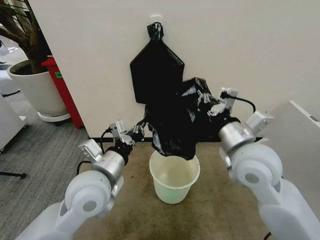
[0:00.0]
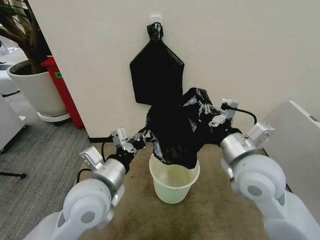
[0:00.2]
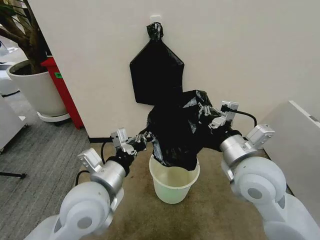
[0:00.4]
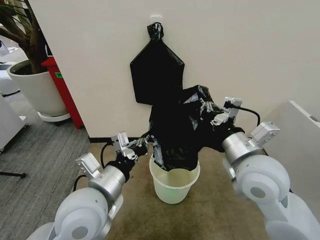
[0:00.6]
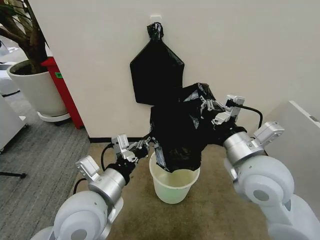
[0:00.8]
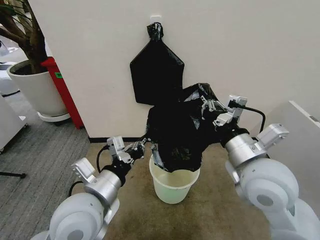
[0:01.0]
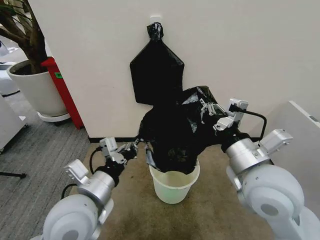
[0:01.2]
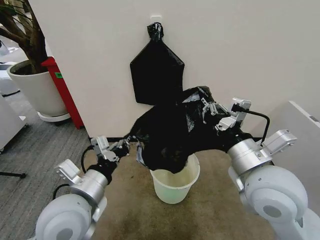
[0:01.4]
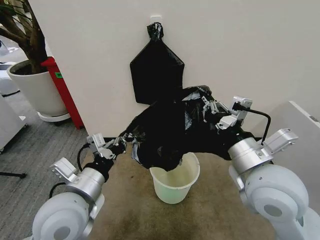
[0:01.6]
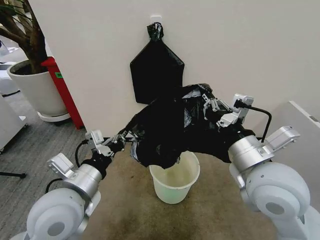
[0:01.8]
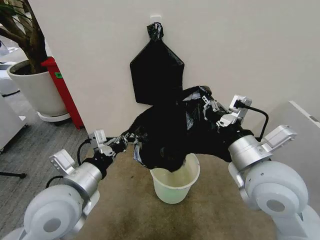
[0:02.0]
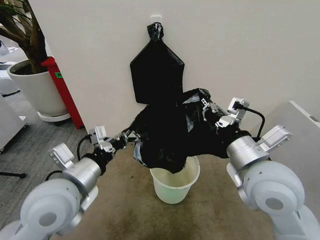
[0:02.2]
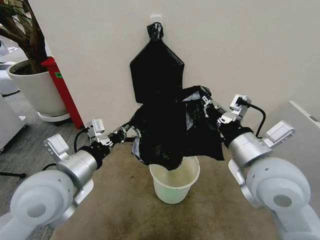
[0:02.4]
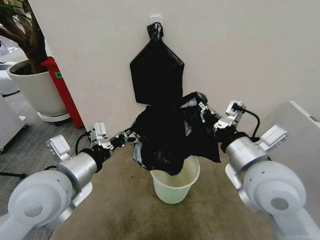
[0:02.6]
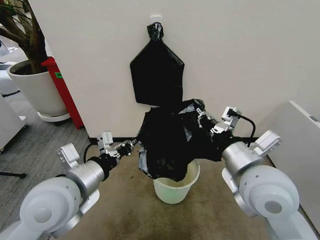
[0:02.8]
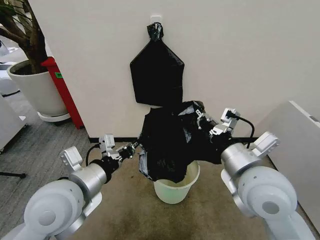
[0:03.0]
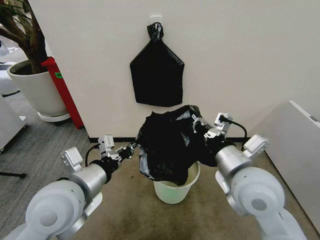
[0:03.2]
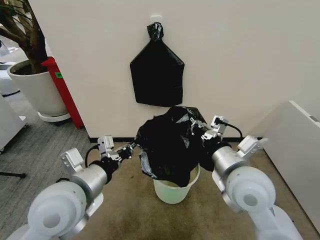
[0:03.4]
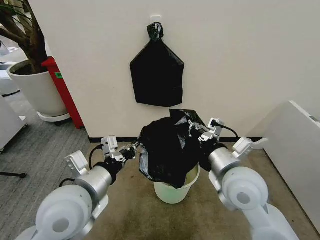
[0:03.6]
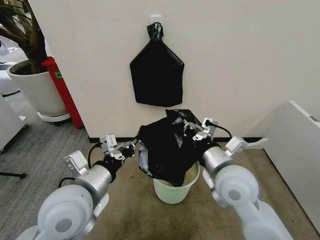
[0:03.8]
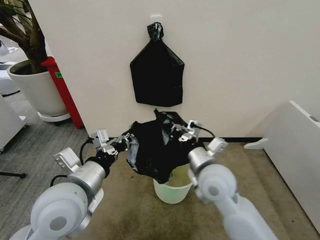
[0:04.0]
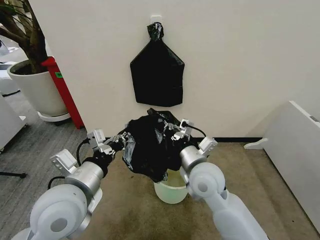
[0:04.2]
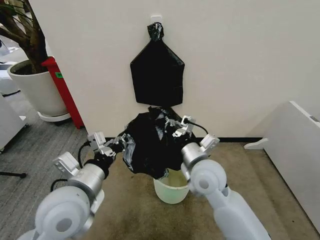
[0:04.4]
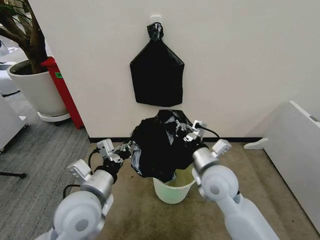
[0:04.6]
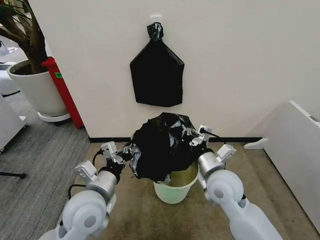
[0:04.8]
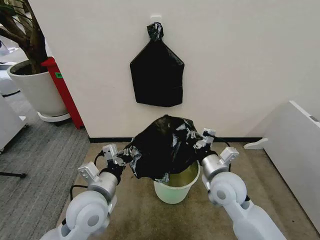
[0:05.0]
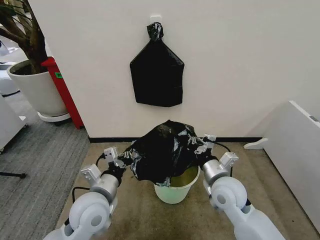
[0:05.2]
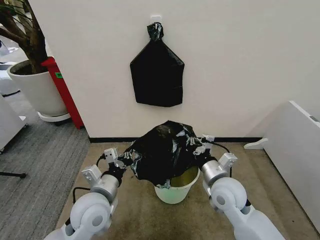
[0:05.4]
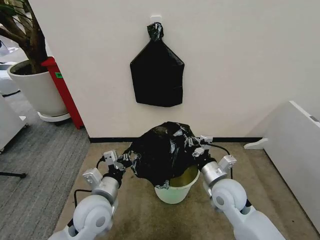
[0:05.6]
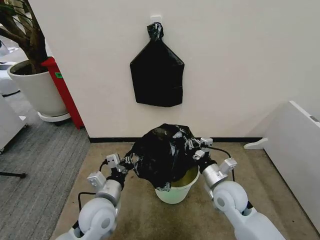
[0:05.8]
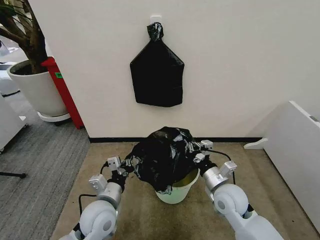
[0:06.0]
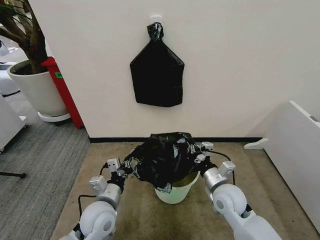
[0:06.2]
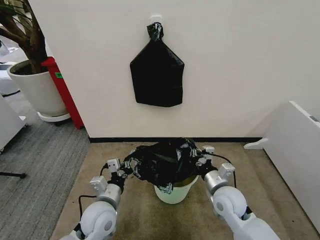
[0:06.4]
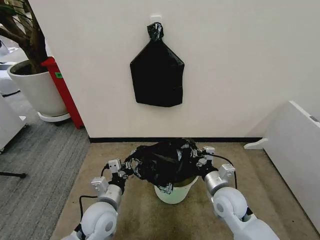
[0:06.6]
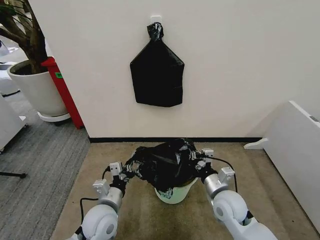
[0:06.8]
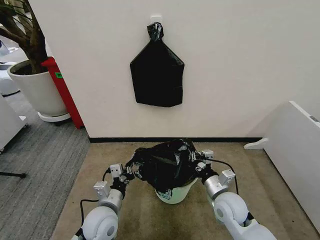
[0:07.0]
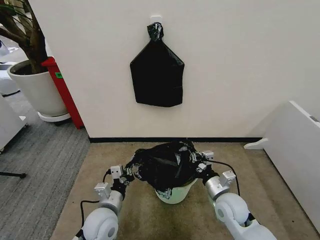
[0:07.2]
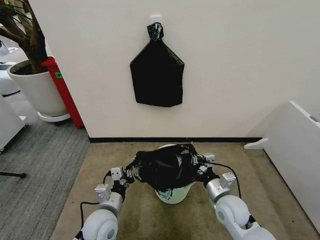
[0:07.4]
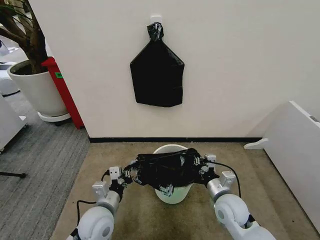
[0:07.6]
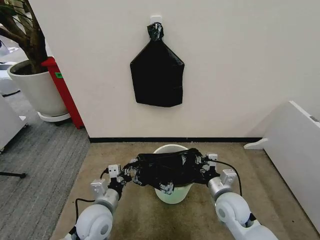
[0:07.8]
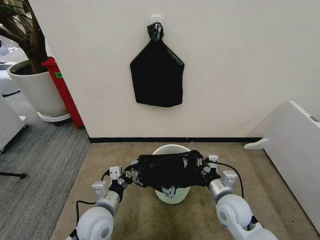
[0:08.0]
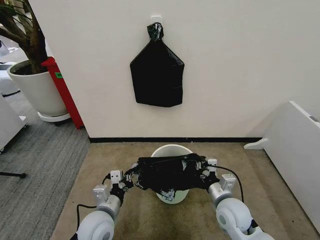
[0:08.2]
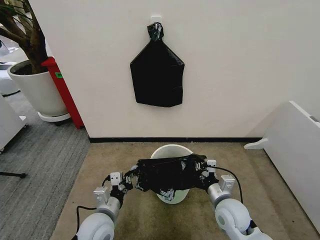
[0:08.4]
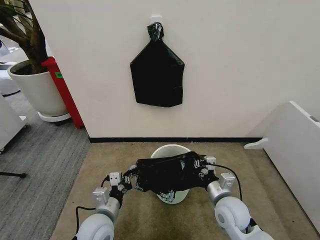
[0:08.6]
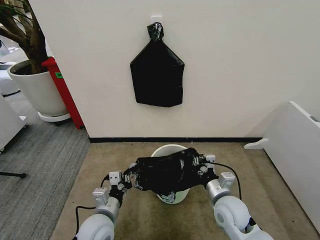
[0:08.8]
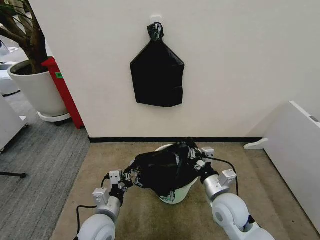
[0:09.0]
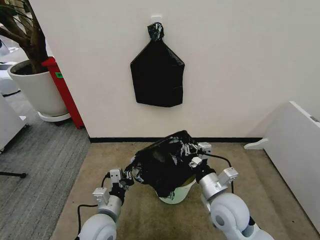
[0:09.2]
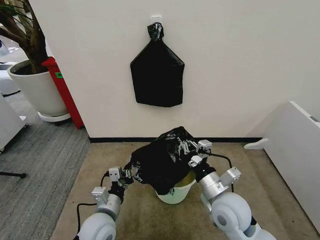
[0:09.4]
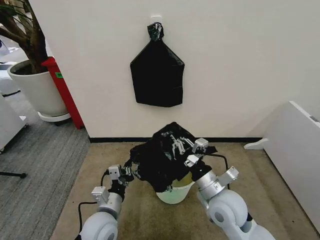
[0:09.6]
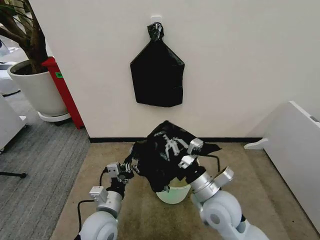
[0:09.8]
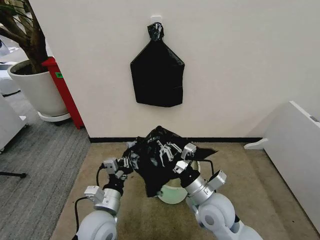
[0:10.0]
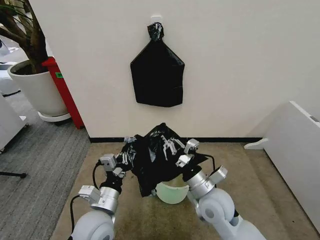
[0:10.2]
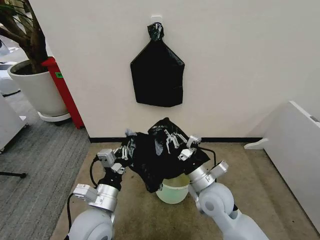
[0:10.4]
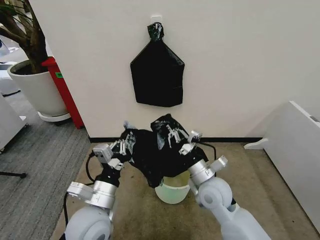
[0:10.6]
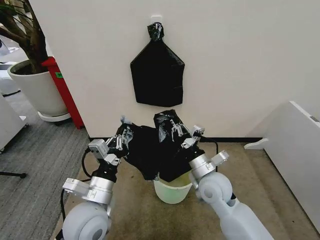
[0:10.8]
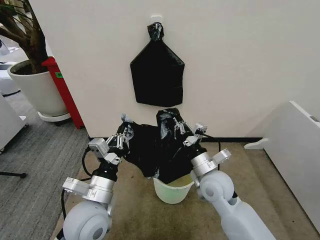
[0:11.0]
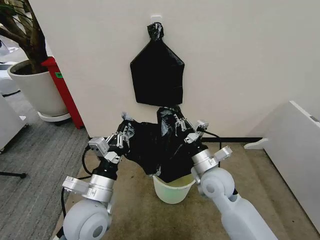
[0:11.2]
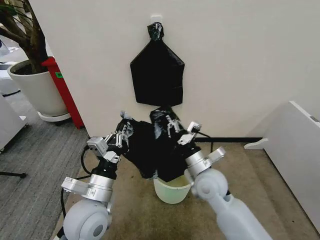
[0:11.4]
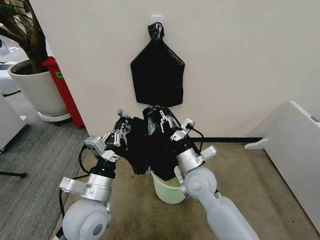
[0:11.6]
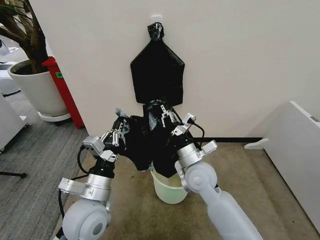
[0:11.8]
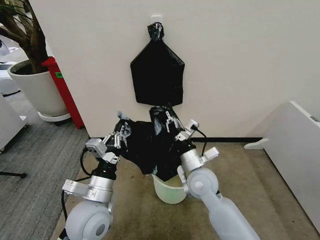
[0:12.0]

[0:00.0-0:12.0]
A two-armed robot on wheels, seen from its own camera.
Task of the whole recording: Place the garbage bag over the trash bin.
0:00.0 to 0:01.6: The left gripper moves approximately 5 cm. The right gripper is displaced backward by some 5 cm.
0:01.6 to 0:03.0: There are only small adjustments of the grippers.
0:03.0 to 0:04.4: The right gripper heads downward, forward and to the left, covering roughly 15 cm.
0:04.4 to 0:06.0: The right gripper heads downward and to the right, covering approximately 15 cm, while the left gripper heads downward, covering approximately 15 cm.
0:06.0 to 0:07.6: The grippers move only a little.
0:07.6 to 0:09.0: The right gripper changes place by approximately 5 cm.
0:09.0 to 0:10.4: The left gripper is displaced upward by some 10 cm, while the right gripper moves some 5 cm.
0:10.4 to 0:12.0: The right gripper moves some 5 cm.

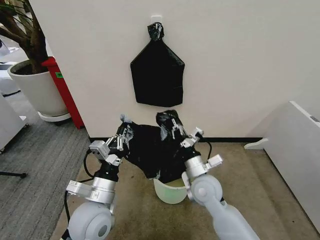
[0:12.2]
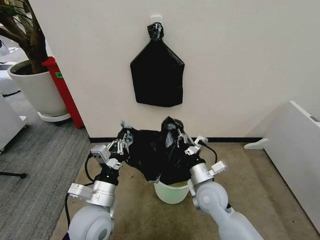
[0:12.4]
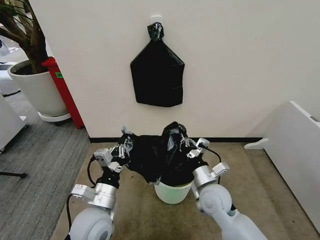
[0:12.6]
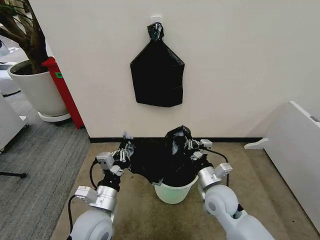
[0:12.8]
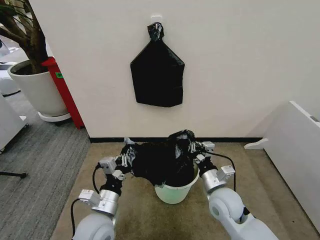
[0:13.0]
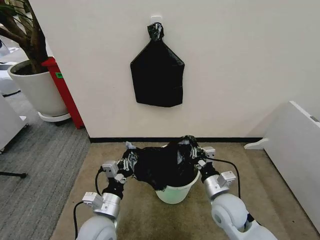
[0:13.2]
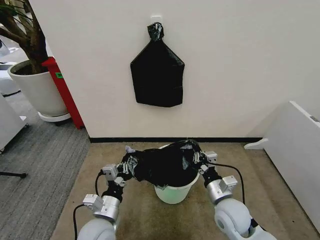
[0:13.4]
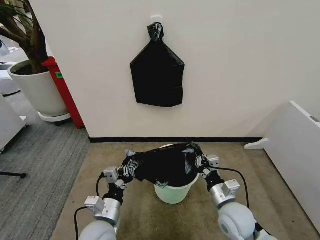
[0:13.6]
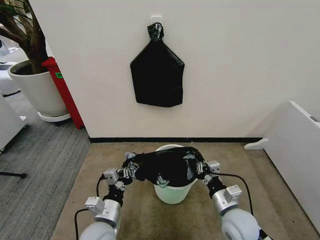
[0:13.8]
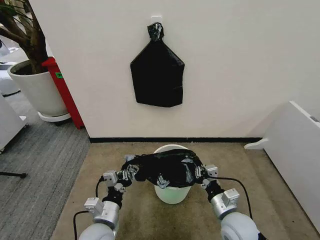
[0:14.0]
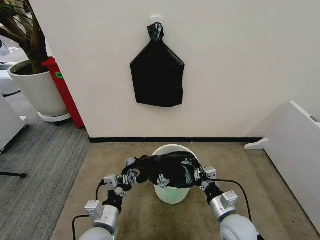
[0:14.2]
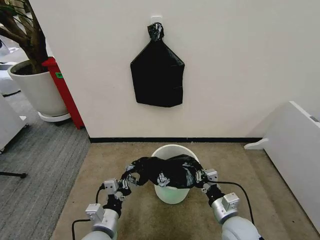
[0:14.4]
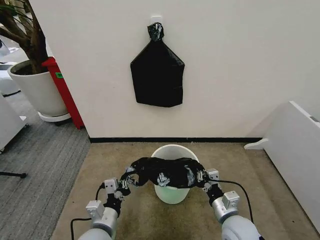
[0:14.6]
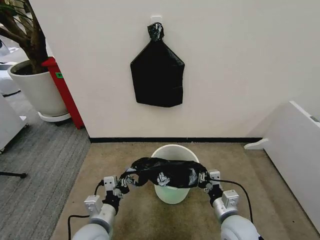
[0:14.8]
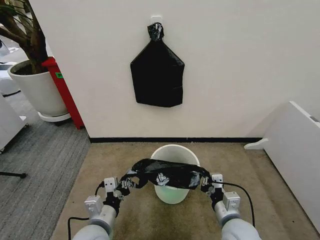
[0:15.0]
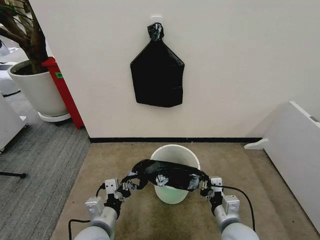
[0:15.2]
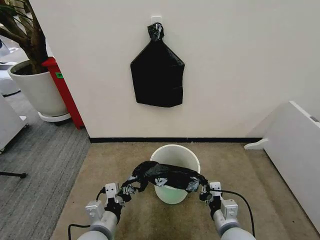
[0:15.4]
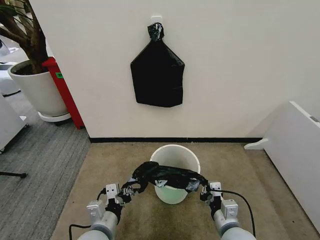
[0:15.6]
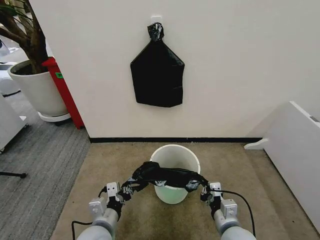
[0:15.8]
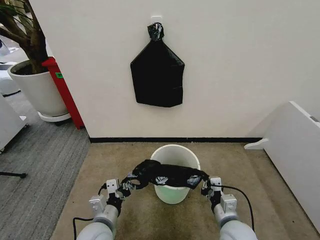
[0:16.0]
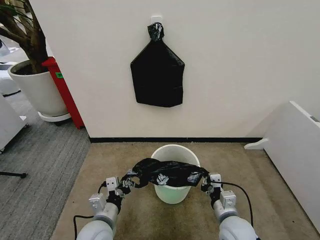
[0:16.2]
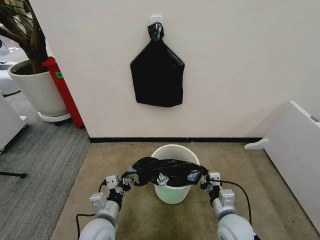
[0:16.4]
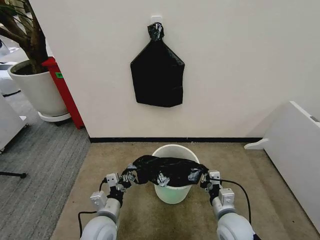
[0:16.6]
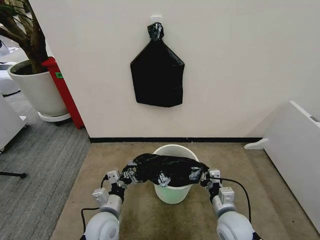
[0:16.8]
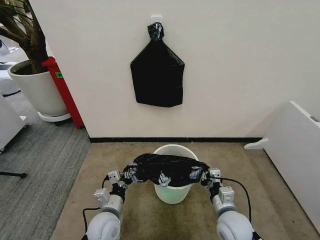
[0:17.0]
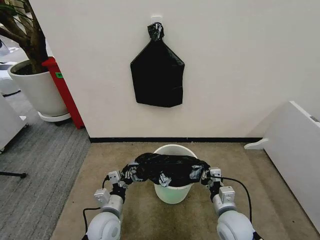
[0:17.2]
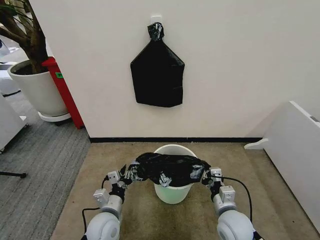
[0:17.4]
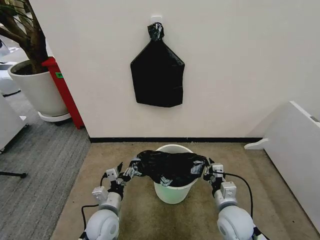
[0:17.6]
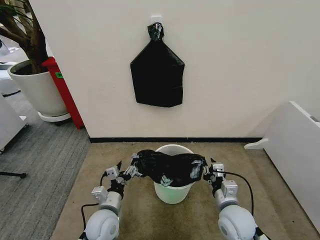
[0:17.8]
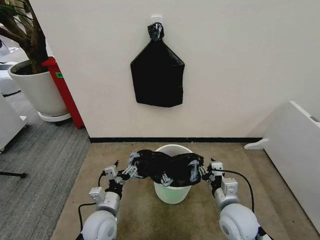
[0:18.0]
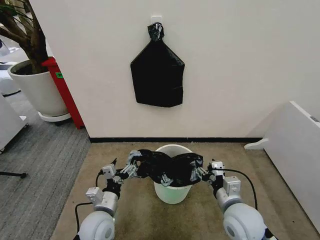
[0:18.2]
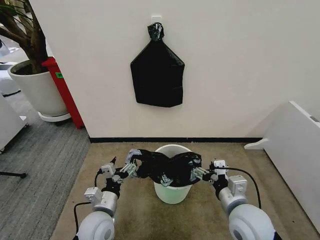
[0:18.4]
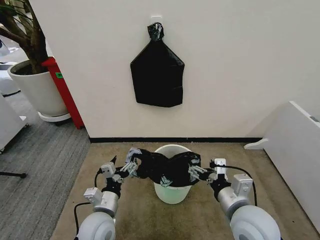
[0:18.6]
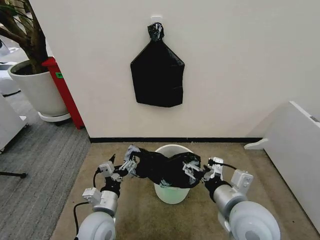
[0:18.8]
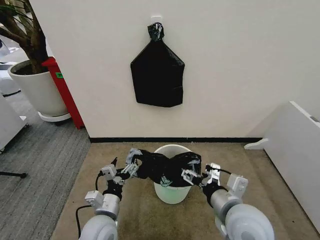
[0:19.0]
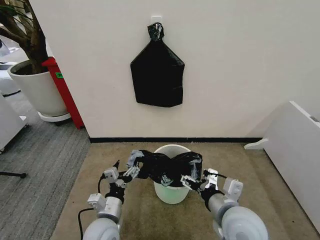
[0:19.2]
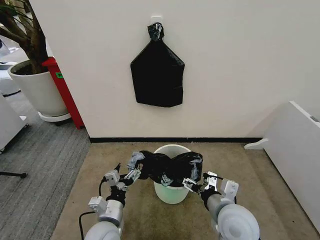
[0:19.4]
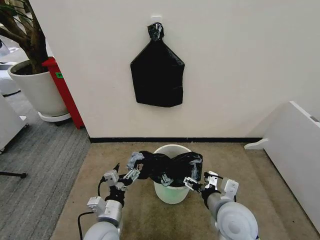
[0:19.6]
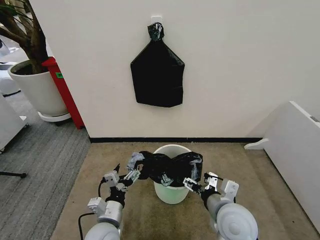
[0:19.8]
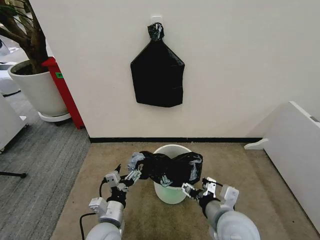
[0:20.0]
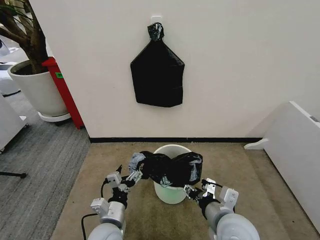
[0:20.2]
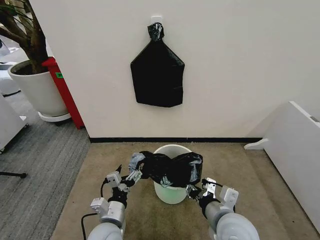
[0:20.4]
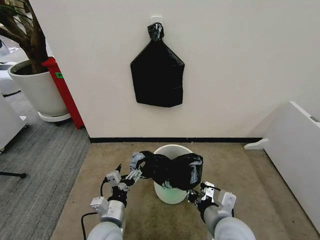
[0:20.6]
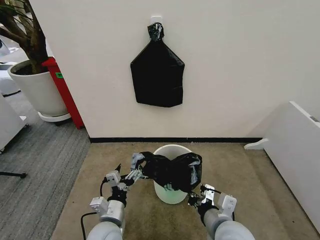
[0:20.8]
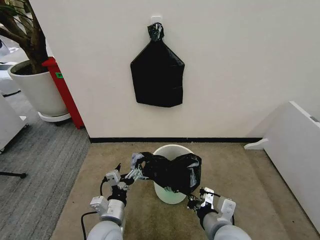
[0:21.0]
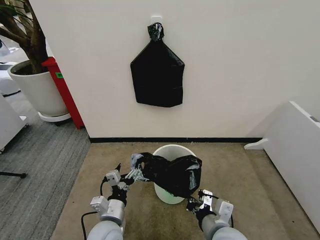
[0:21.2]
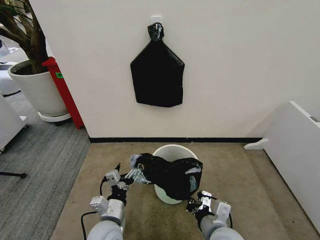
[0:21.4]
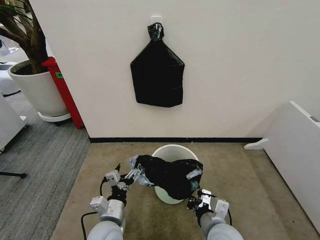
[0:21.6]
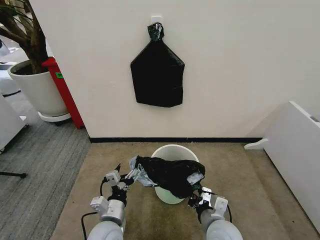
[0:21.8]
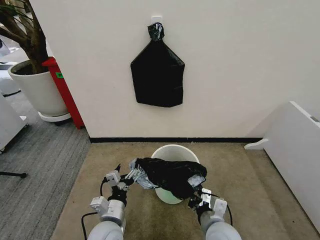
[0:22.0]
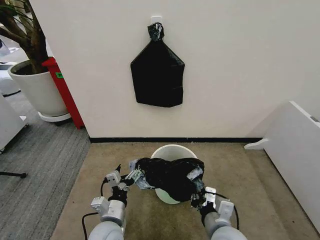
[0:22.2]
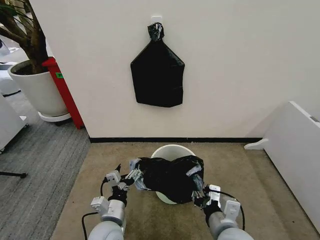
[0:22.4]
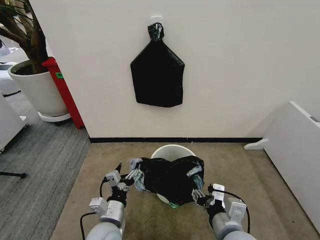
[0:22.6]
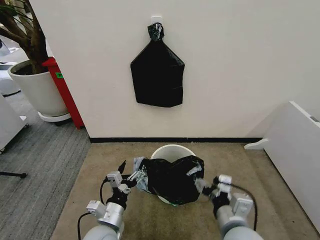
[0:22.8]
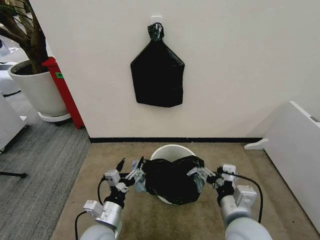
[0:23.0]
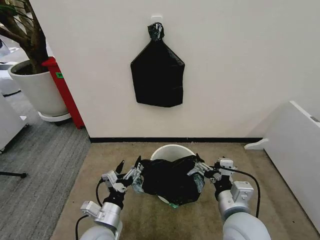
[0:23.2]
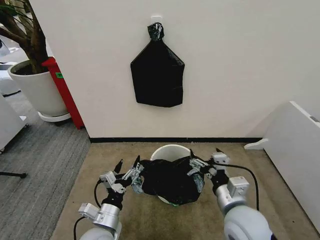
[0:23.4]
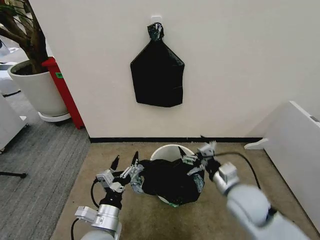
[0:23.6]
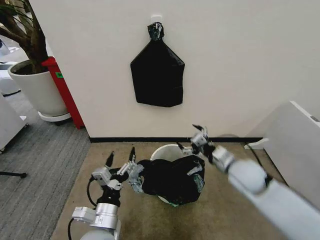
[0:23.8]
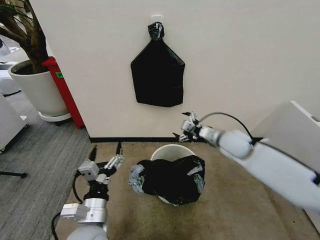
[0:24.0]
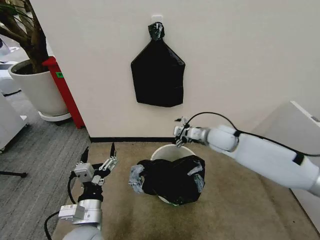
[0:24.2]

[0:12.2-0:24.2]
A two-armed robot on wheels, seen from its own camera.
Task of the whole recording: Place the garbage bag over the trash bin.
0:12.2 to 0:13.8: The left gripper moves downward, roughly 10 cm. Meanwhile the right gripper shifts roughly 10 cm to the right and backward.
0:15.2 to 0:16.6: The left gripper travels downward by approximately 5 cm.
0:16.6 to 0:18.2: The left gripper opens its fingers; the right gripper moves upward, roughly 10 cm, and opens up.
0:18.2 to 0:19.8: The right gripper travels upward and back again, approximately 10 cm each way.
0:19.8 to 0:21.2: The right gripper moves about 5 cm, and closes.
0:21.2 to 0:22.6: The right gripper opens.
0:22.6 to 0:24.2: The right gripper goes about 30 cm forward, and opens its fingers. The left gripper is displaced upward by roughly 5 cm.
